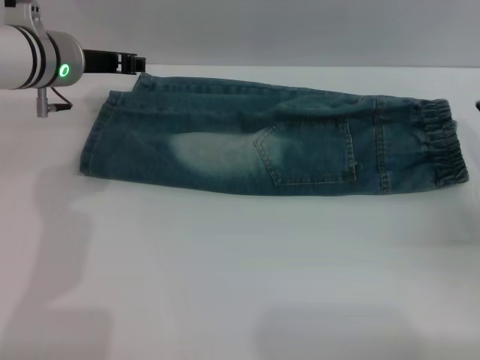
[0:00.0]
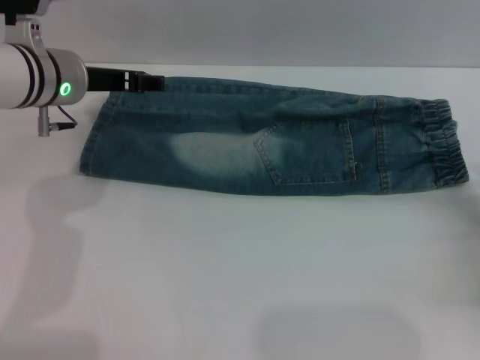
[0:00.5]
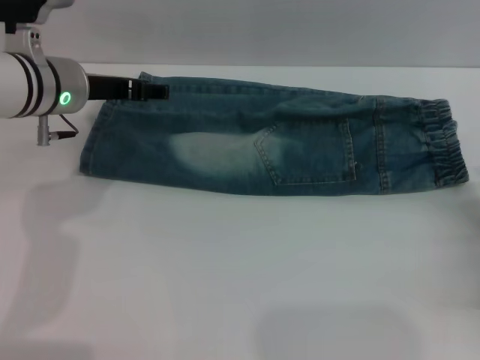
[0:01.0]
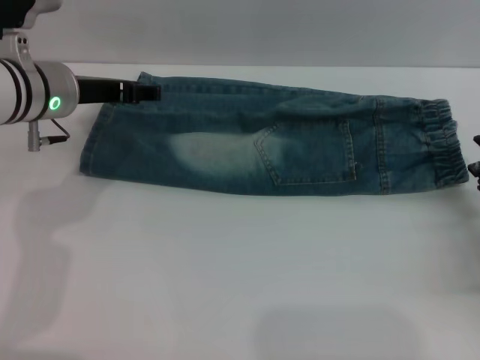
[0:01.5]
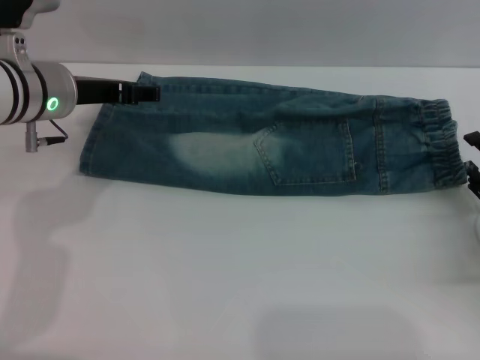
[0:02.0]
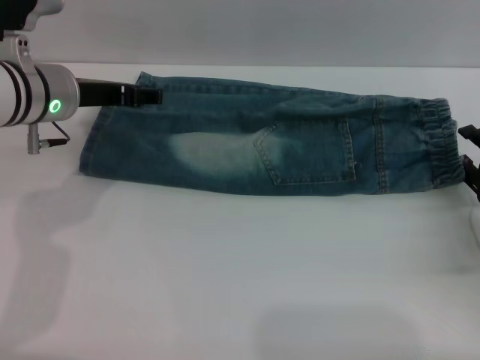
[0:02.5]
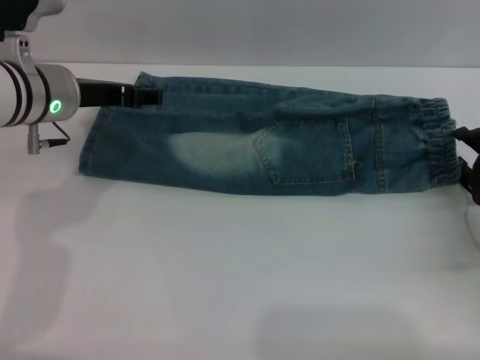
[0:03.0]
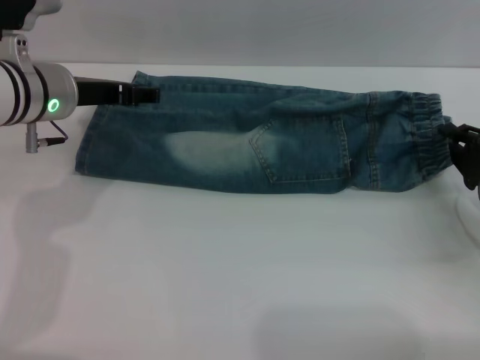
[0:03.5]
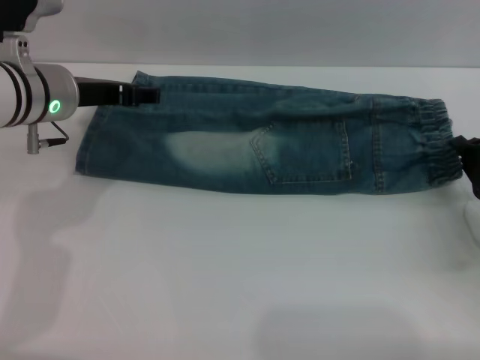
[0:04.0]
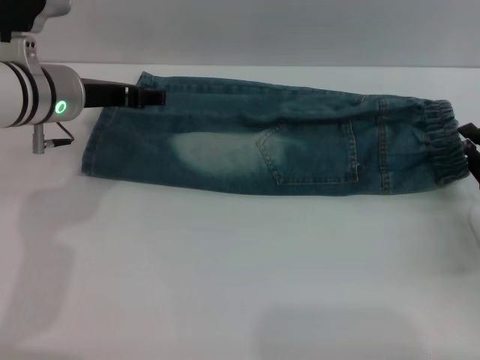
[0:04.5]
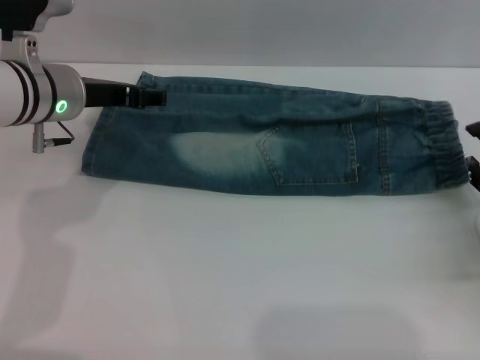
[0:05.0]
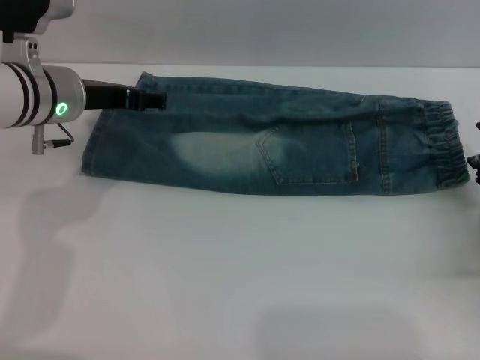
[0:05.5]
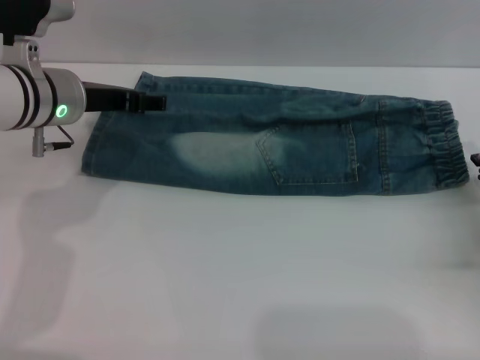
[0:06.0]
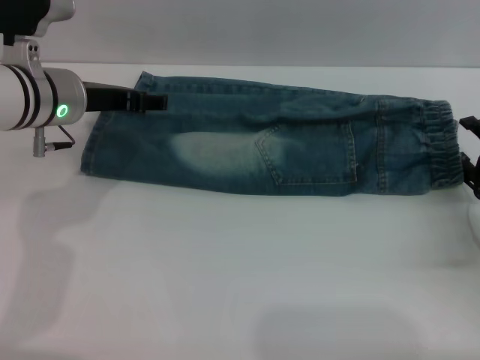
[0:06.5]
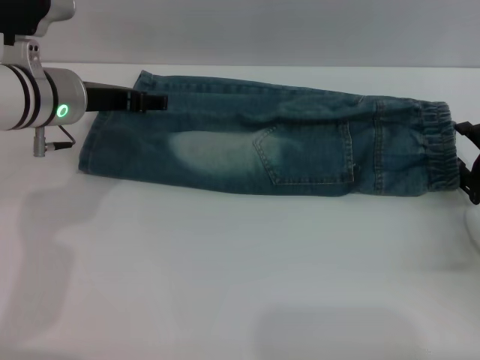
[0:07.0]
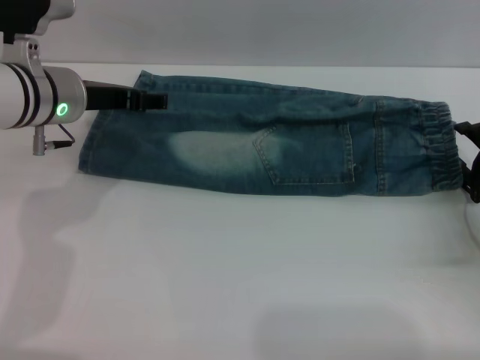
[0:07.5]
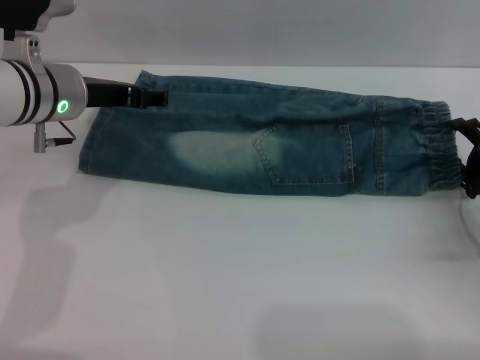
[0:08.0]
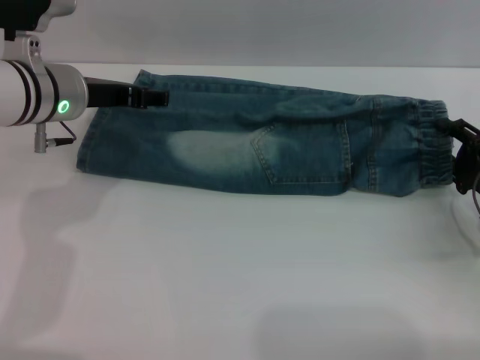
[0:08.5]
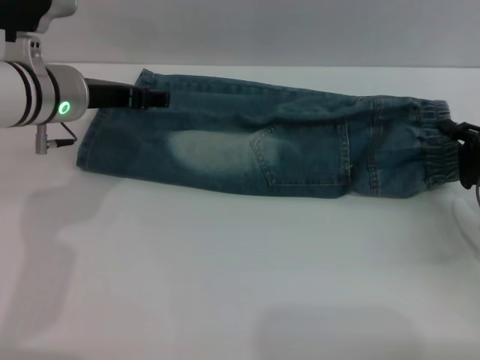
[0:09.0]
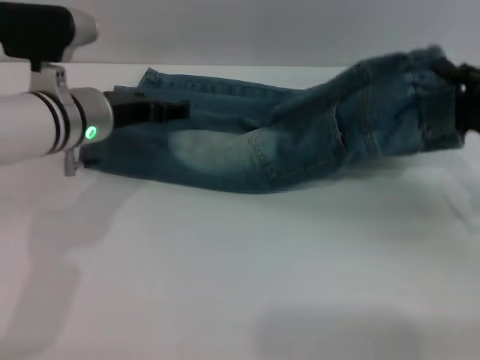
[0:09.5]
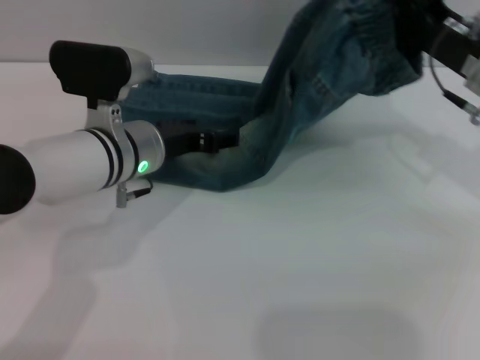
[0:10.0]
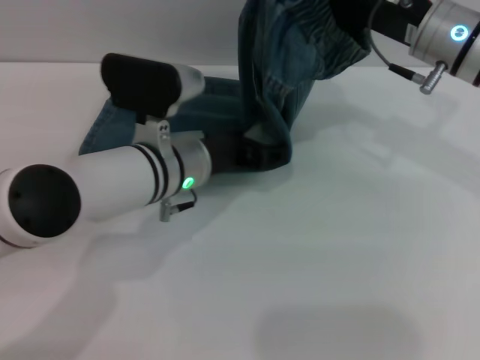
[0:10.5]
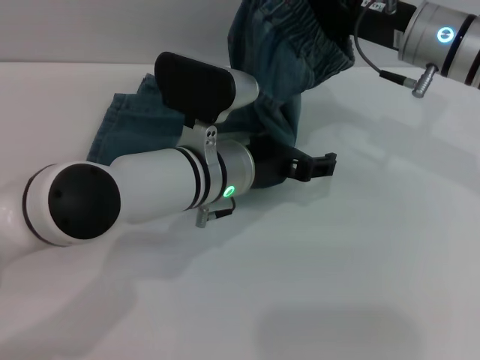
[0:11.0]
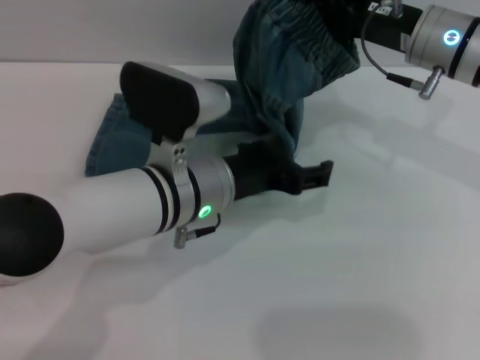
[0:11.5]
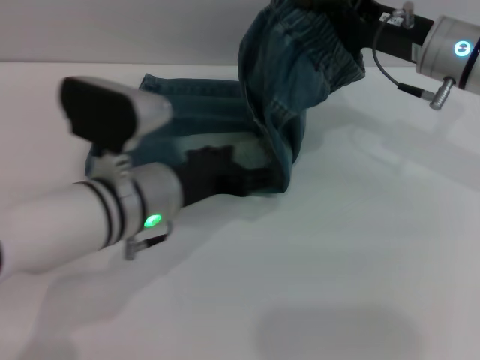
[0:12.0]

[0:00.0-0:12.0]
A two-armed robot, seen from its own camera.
Step, 0:00.0 to 0:02.0: Fold the bottom of the pants upward with both grippers.
0:00.0 to 0:02.0: The left gripper opens up. Meanwhile the right gripper moves about 5 cm.
0:02.0 to 0:04.0: The right gripper closes its fingers.
0:04.0 to 0:06.0: The right gripper opens.
0:06.0 to 0:08.0: The grippers move only a little.
0:08.0 to 0:10.0: The left gripper shifts some 10 cm to the right and downward. The right gripper moves upward, forward and to the left, some 15 cm, and closes.
0:10.0 to 0:12.0: The left gripper travels backward by some 5 cm, and reaches some 10 cm to the right, then returns.

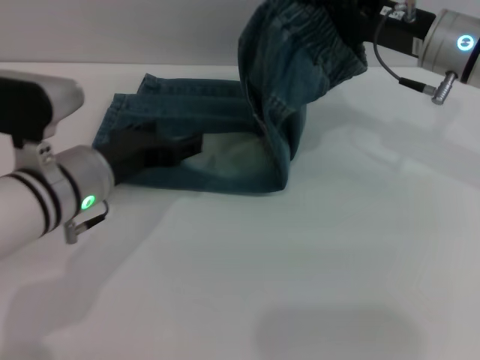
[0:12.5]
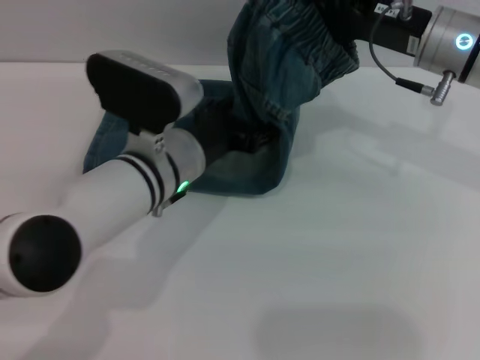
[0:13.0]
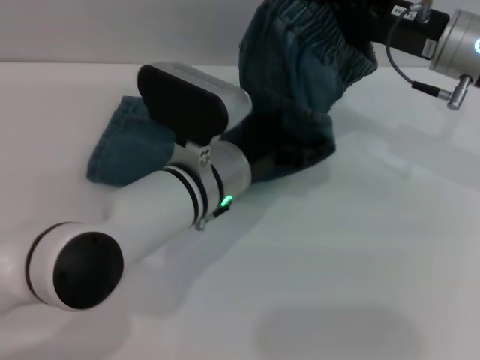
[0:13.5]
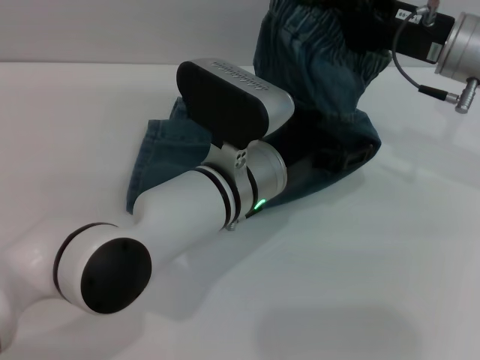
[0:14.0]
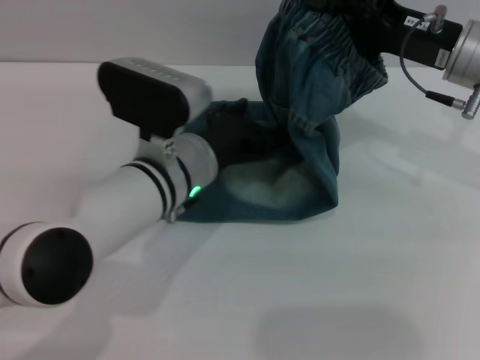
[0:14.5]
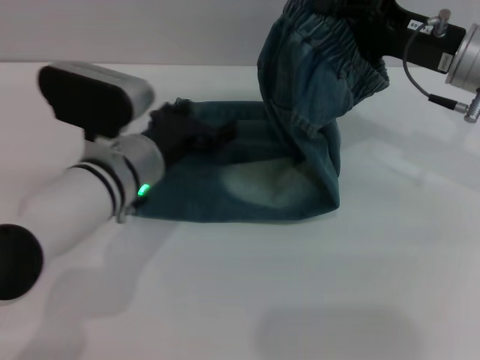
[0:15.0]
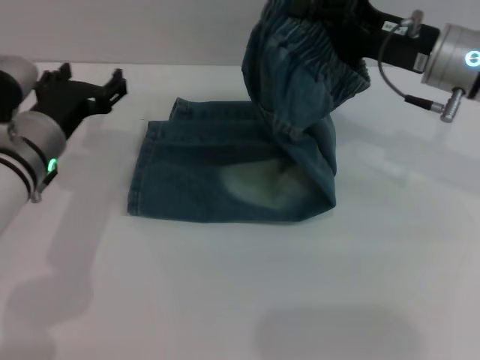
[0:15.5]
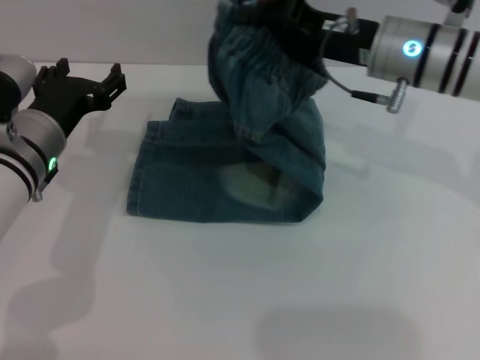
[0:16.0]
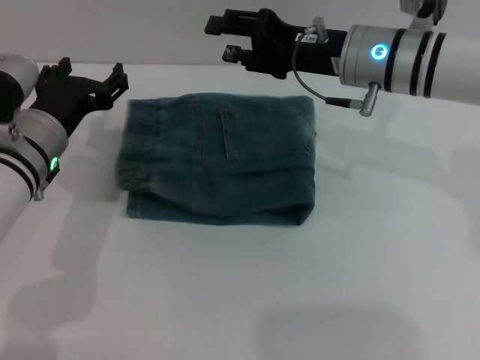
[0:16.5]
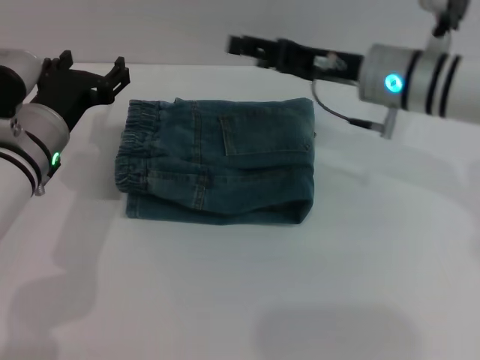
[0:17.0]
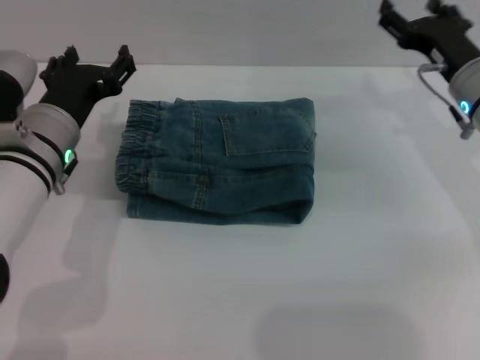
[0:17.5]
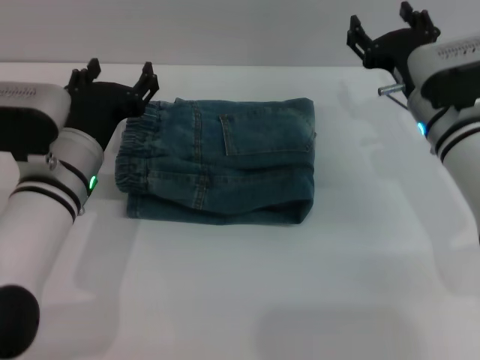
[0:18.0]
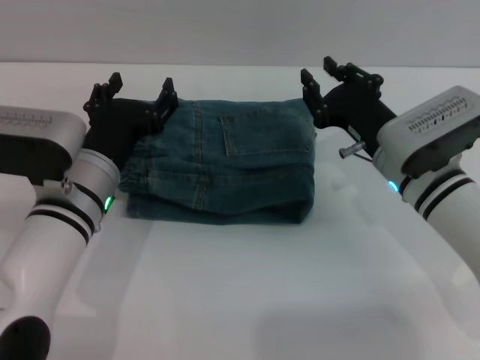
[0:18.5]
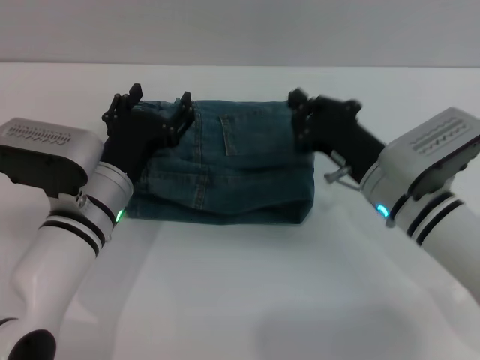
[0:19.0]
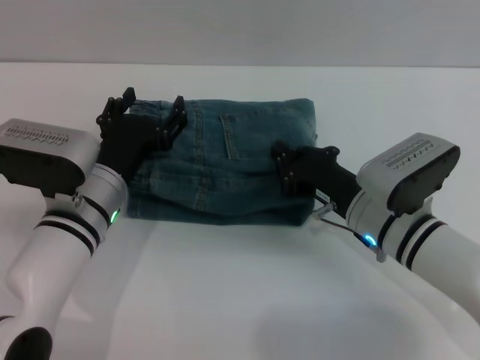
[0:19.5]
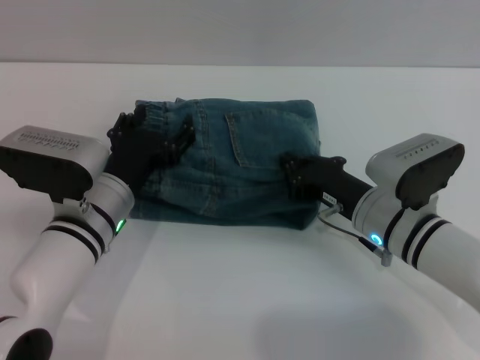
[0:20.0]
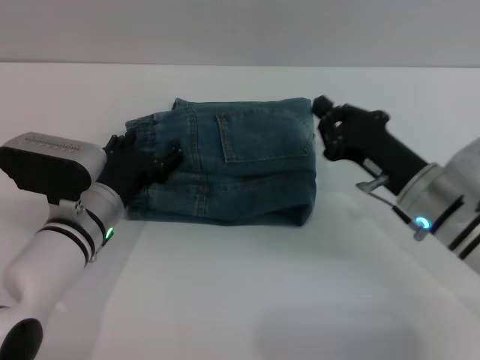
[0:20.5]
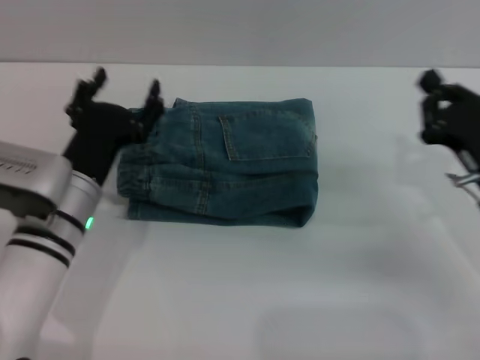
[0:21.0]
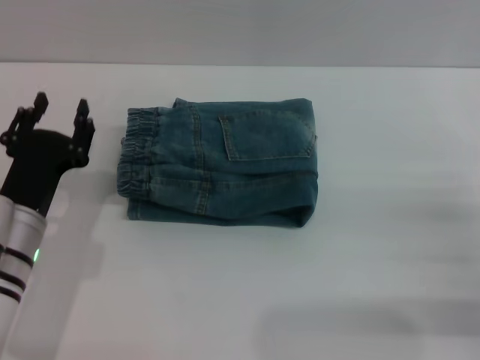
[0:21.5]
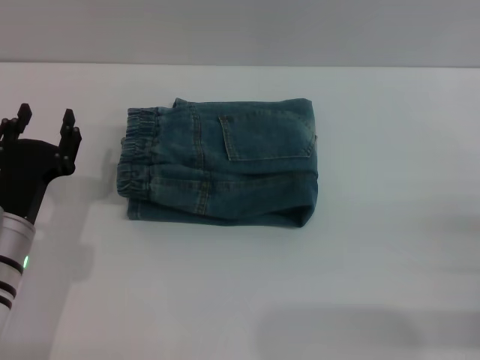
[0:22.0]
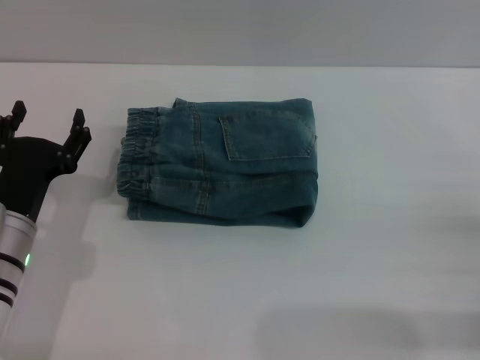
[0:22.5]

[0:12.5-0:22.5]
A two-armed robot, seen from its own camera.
Step, 0:12.5 to 0:16.5: Fold the pants from right to left with the right gripper.
0:12.5 to 0:14.5: The left gripper goes approximately 10 cm to the right.
0:14.5 to 0:16.5: Both grippers move to the left, roughly 10 cm. The right gripper opens its fingers.
0:16.5 to 0:18.5: The left gripper changes place by approximately 5 cm, while the right gripper is displaced downward and backward by roughly 10 cm, and travels to the right and back again, approximately 10 cm each way.
0:18.5 to 0:20.5: The left gripper changes place by approximately 5 cm; the right gripper closes.
0:20.5 to 0:22.5: The right gripper travels to the right and backward by some 20 cm, and opens up; the left gripper moves to the left and backward, some 10 cm, and closes, then reopens.

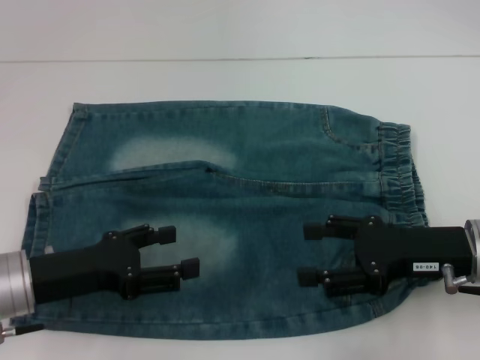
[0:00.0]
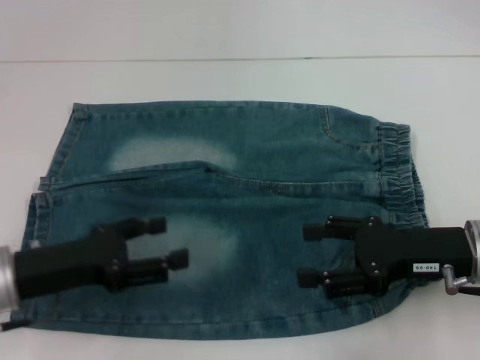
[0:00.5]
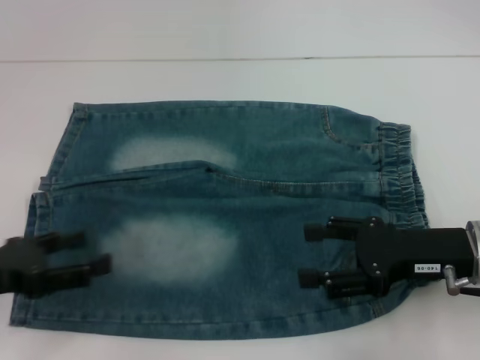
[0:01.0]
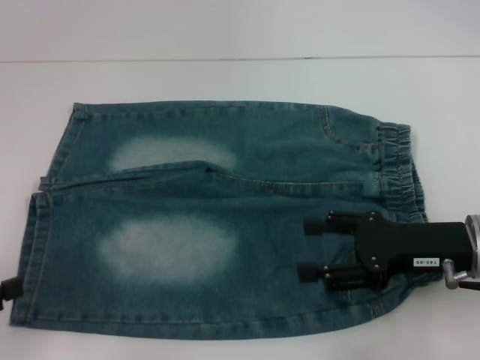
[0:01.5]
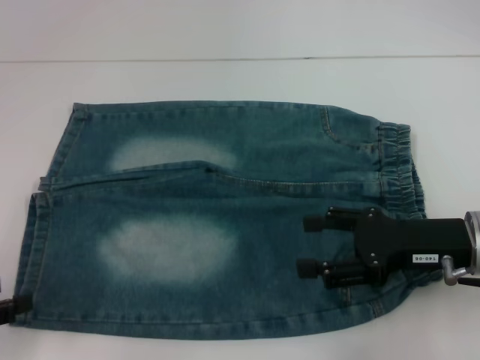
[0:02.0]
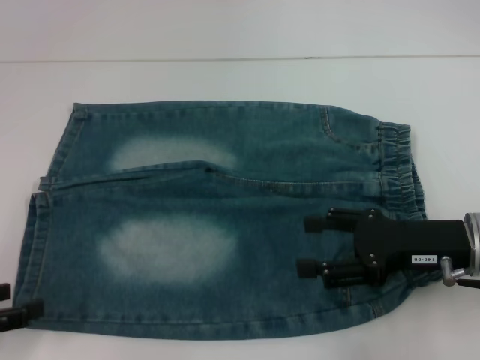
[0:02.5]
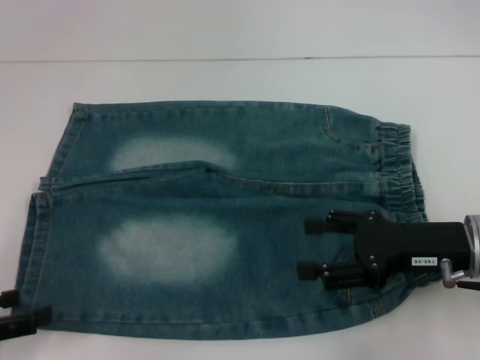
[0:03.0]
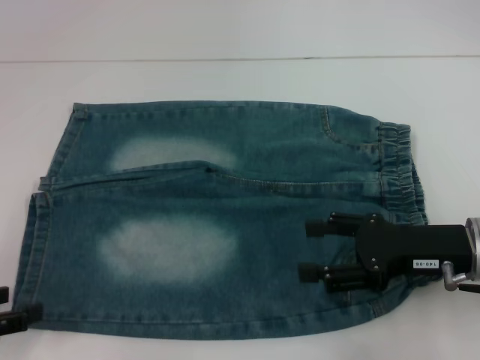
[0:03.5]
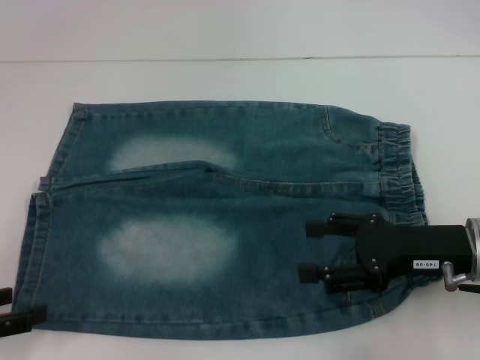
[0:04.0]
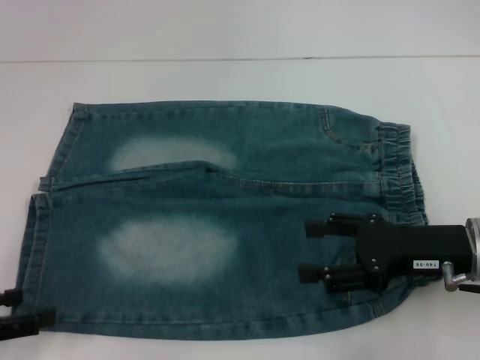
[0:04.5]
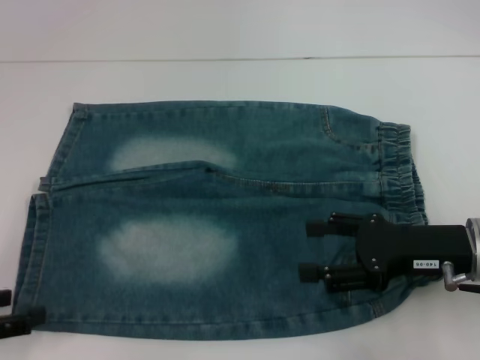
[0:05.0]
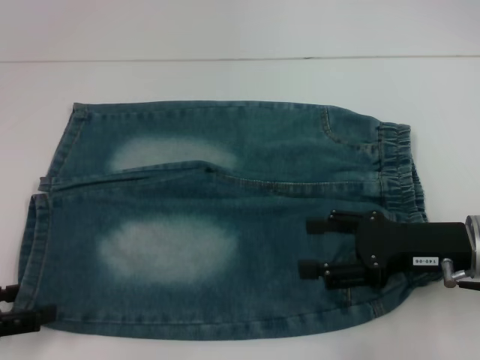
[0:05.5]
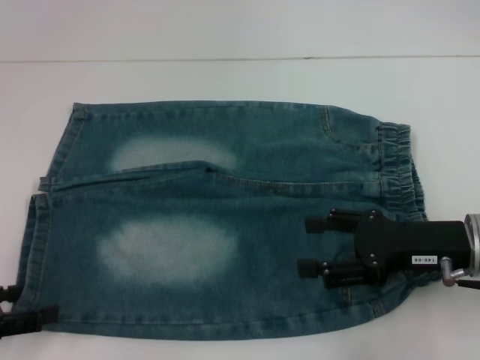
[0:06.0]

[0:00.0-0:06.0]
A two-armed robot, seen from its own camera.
0:00.0 to 0:02.0: The left gripper travels to the left and backward by approximately 15 cm.
0:02.0 to 0:04.0: There are only small adjustments of the grippers.
0:04.0 to 0:06.0: Both grippers stay put.
